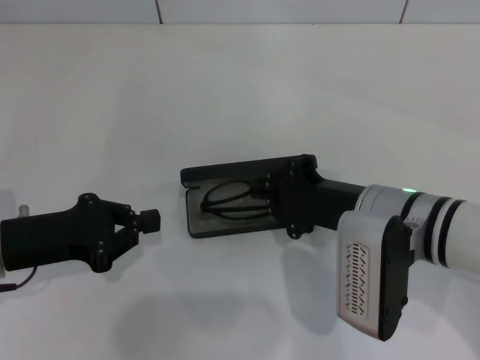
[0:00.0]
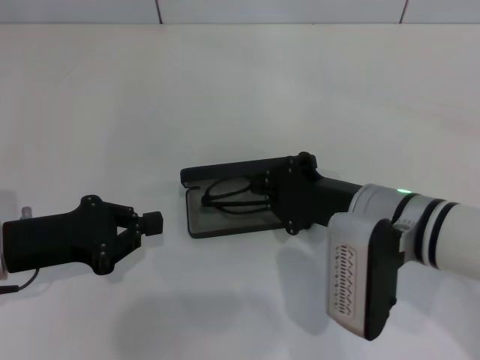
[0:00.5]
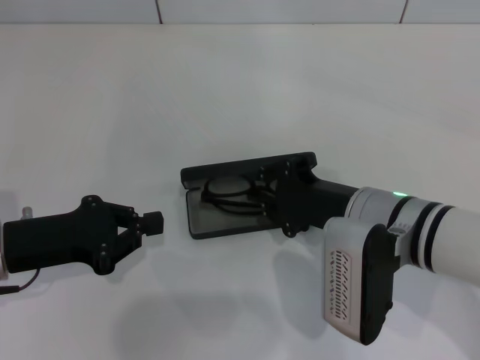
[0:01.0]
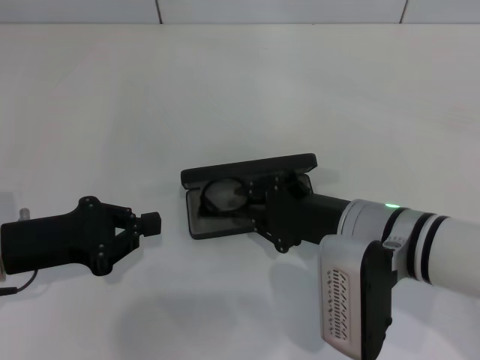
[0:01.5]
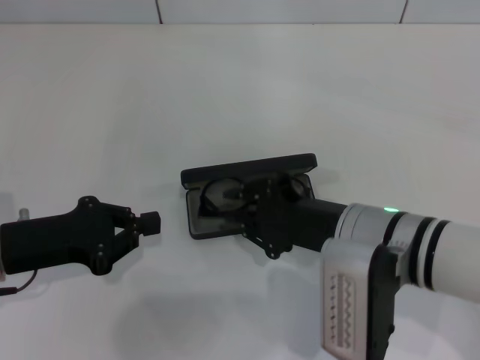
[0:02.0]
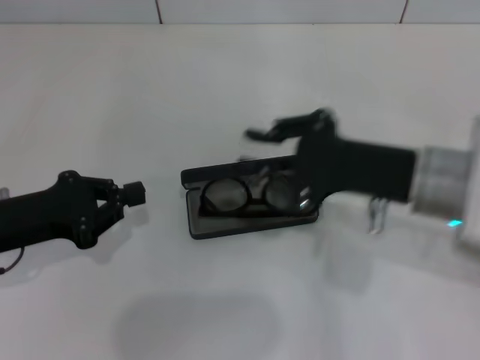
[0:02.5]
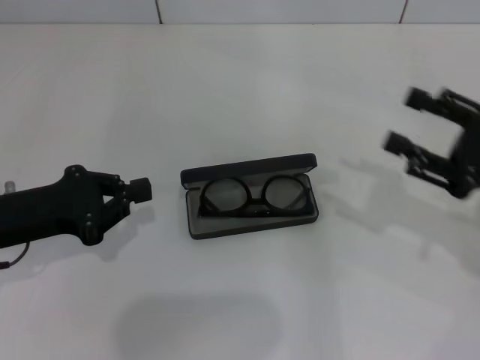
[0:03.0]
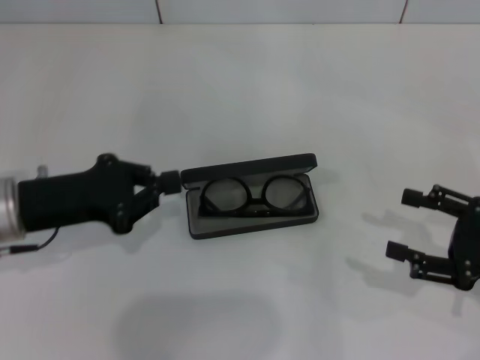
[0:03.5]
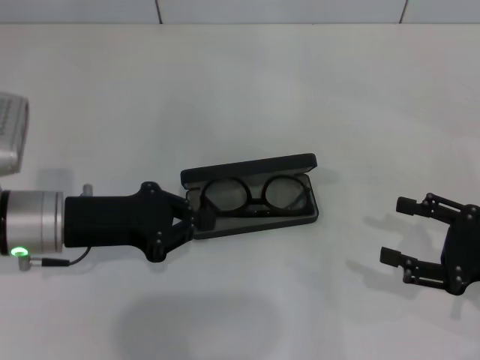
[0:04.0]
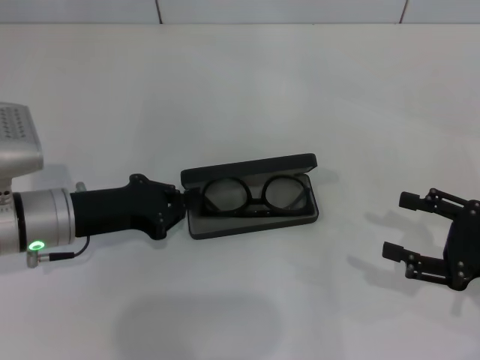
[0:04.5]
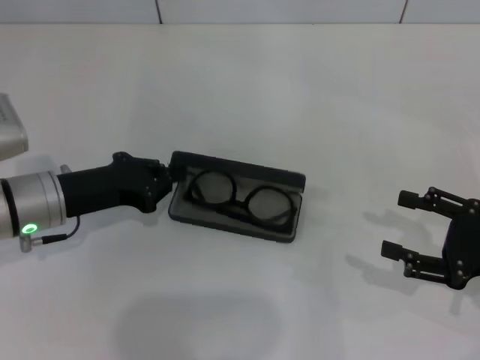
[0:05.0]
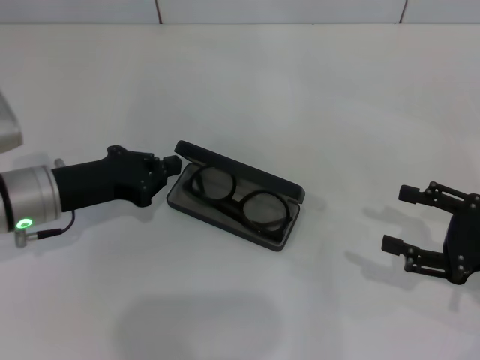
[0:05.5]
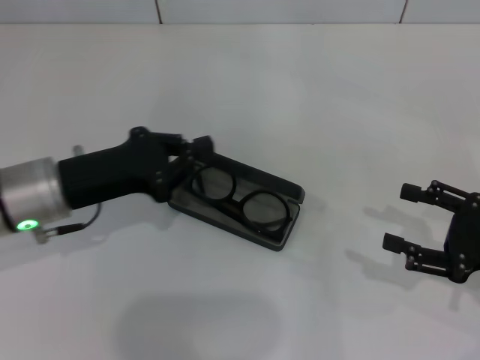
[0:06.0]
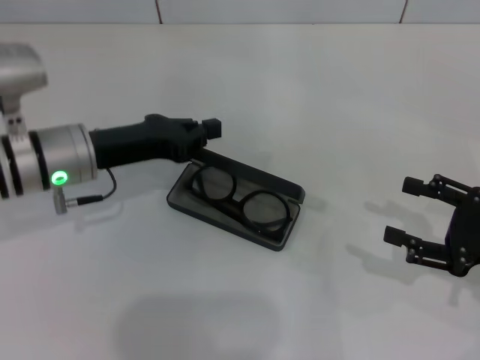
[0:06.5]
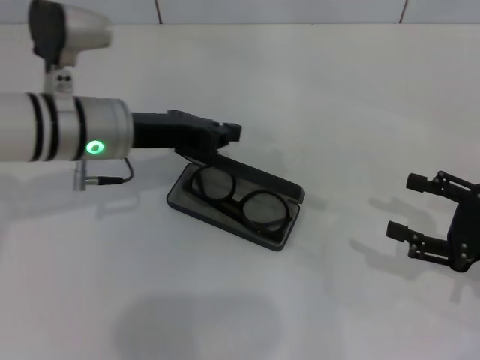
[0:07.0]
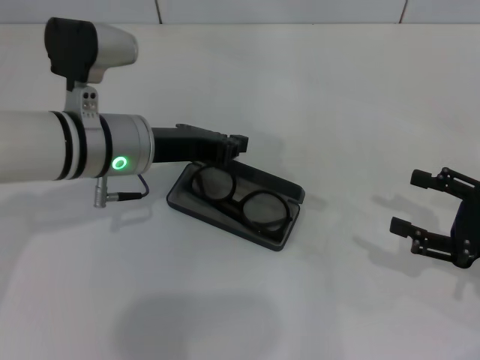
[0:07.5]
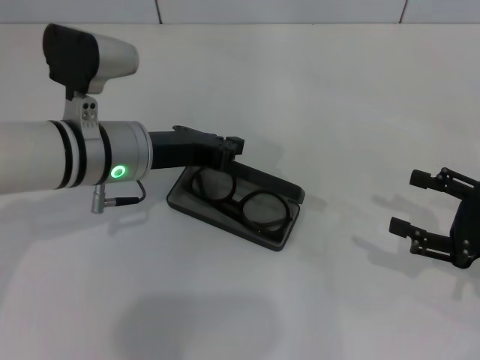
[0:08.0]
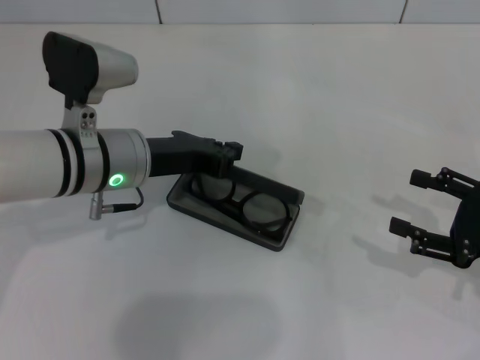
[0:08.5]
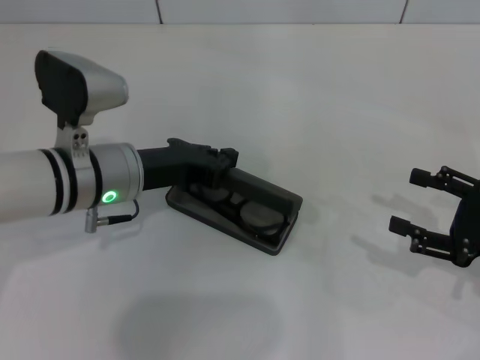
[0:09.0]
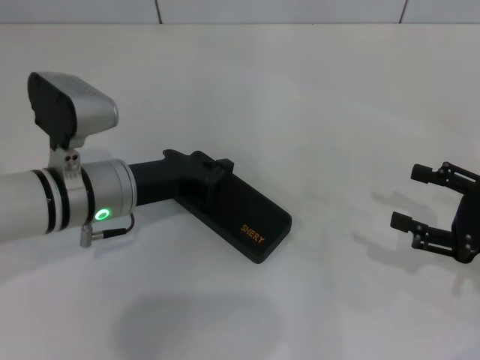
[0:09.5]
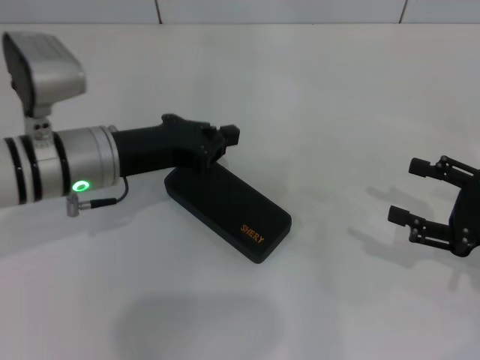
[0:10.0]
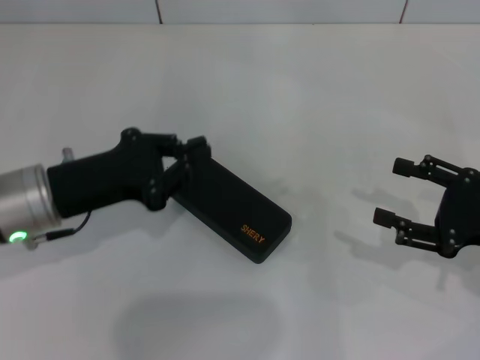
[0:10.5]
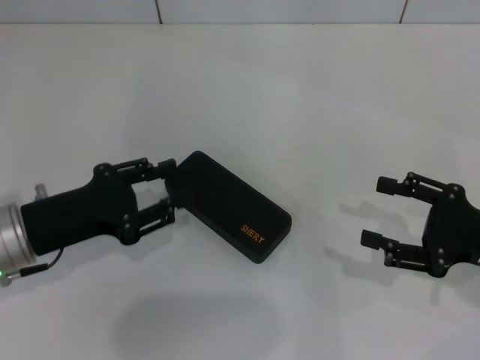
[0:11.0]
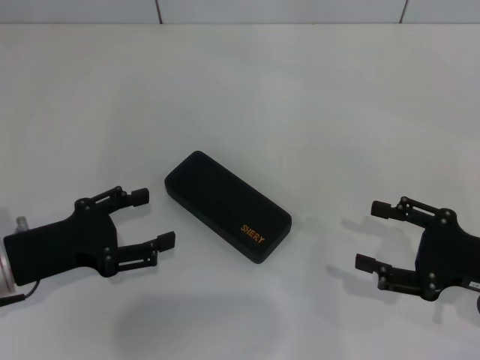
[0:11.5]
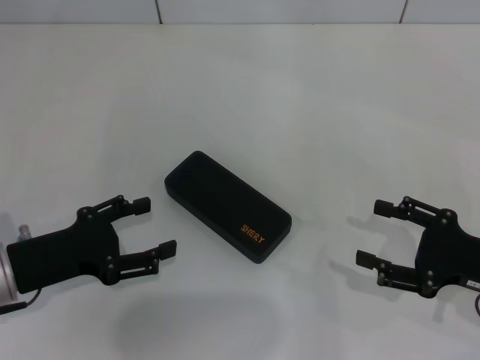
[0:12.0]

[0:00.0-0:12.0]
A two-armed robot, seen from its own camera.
Step, 0:02.0 to 0:09.0: Close the glasses case with your left hand.
0:00.0 to 0:02.0: The grippers make only small movements.
0:02.0 to 0:04.0: The right gripper shifts about 20 cm to the right, and opens its fingers. Meanwhile the left gripper shifts approximately 5 cm to the right.
0:06.0 to 0:08.0: The left gripper shifts roughly 10 cm to the right.
0:08.0 to 0:10.0: The grippers move only a little.
0:10.0 to 0:12.0: The left gripper is displaced backward, to the left and downward by about 15 cm, and opens up.

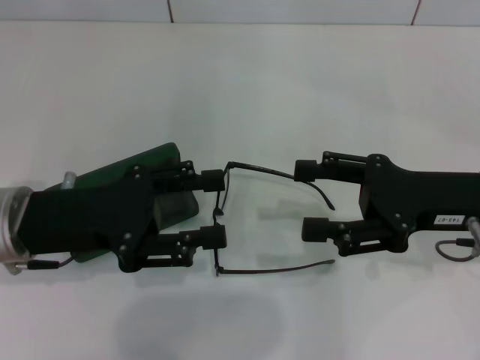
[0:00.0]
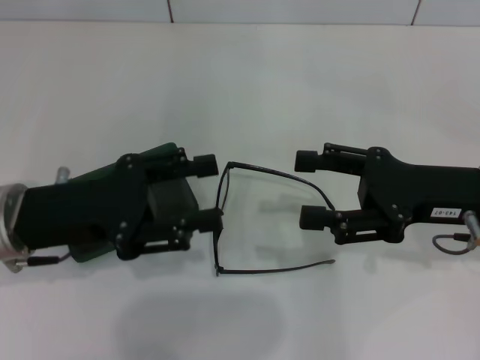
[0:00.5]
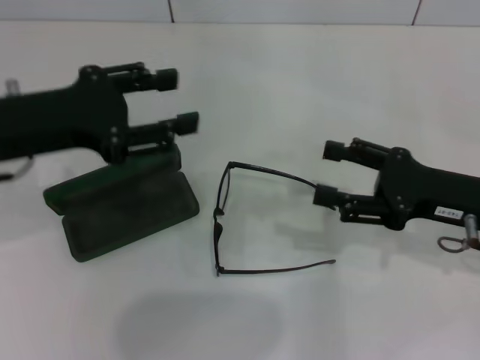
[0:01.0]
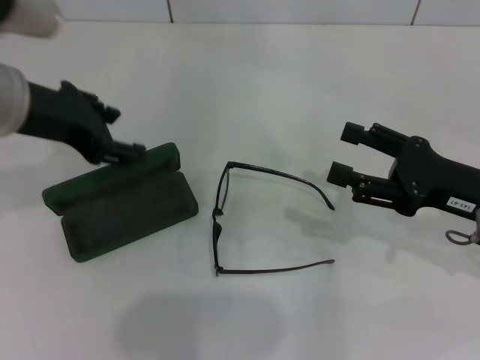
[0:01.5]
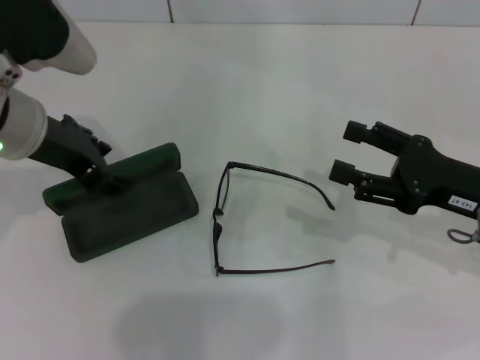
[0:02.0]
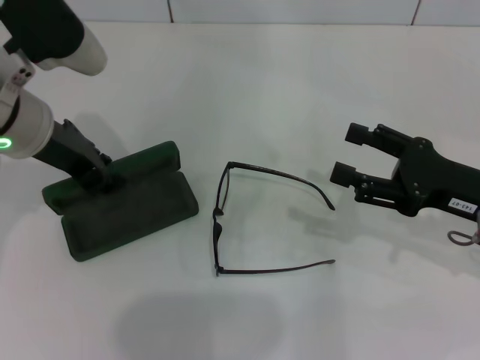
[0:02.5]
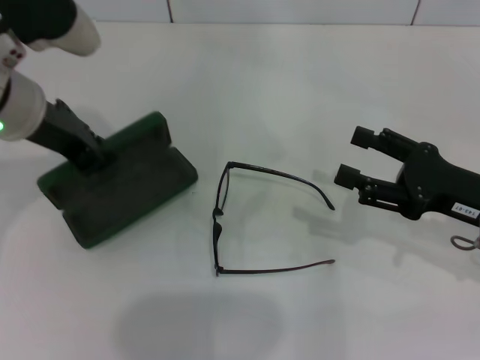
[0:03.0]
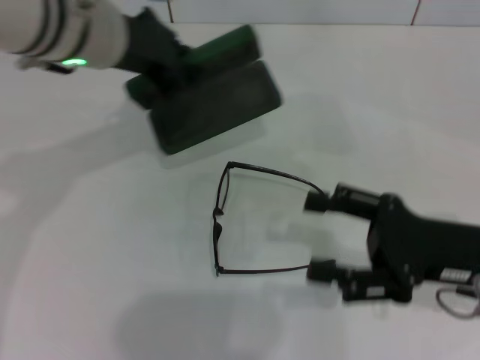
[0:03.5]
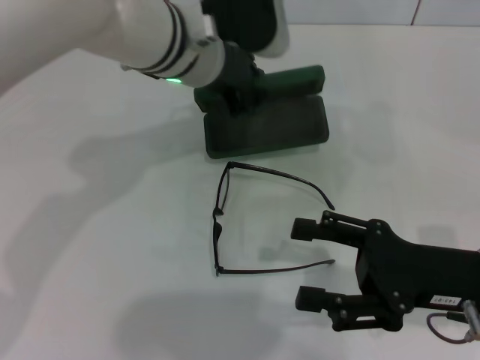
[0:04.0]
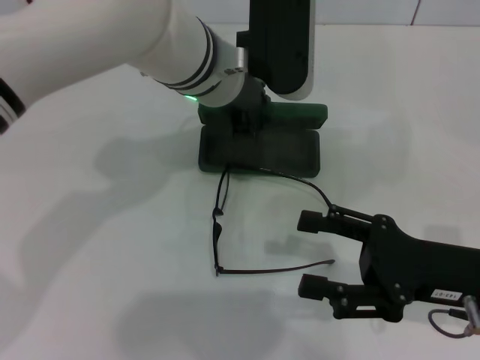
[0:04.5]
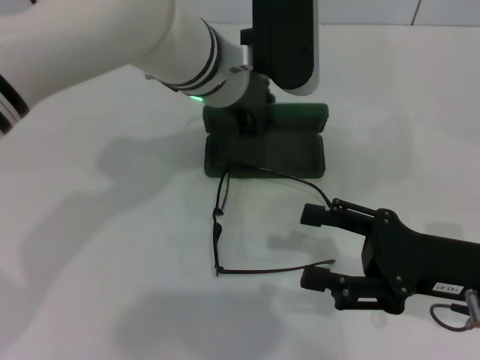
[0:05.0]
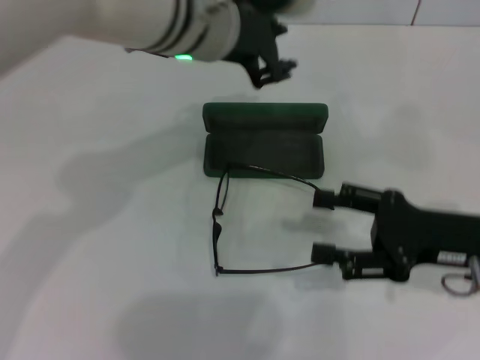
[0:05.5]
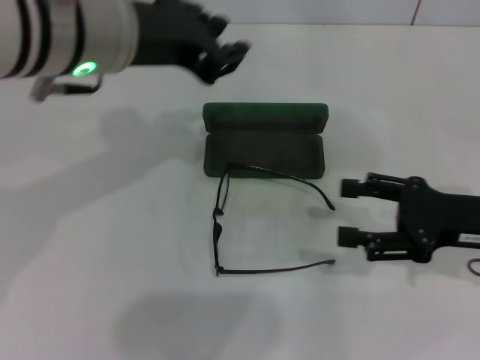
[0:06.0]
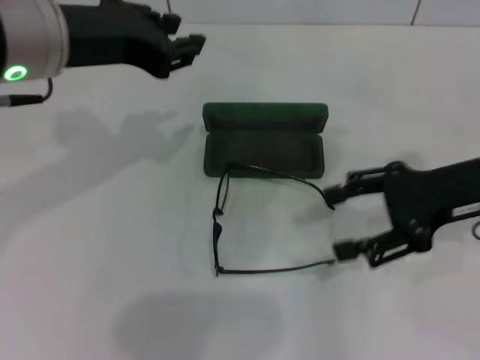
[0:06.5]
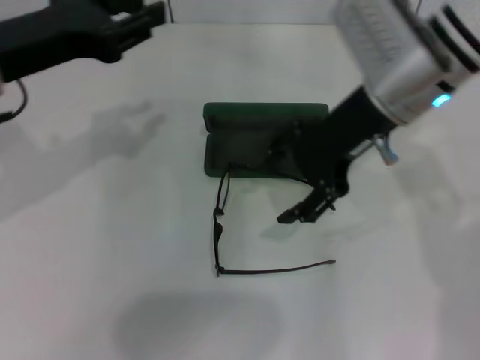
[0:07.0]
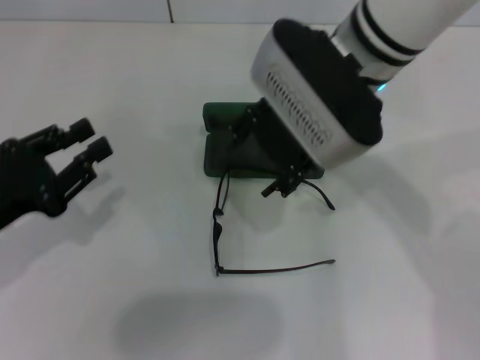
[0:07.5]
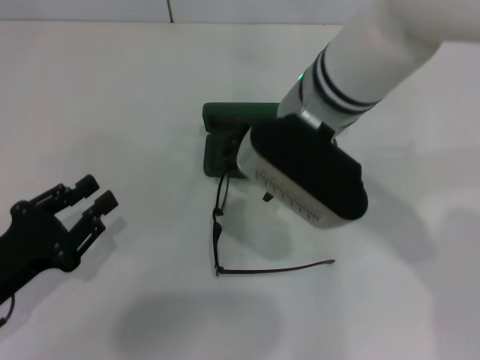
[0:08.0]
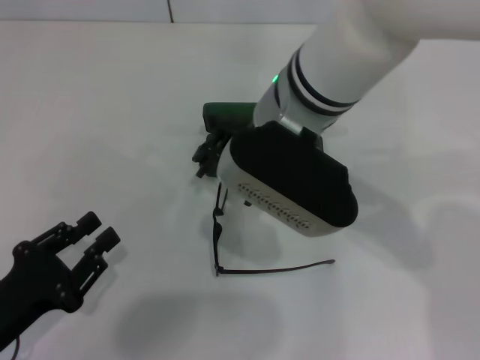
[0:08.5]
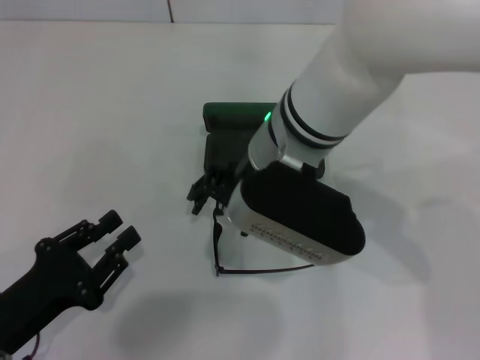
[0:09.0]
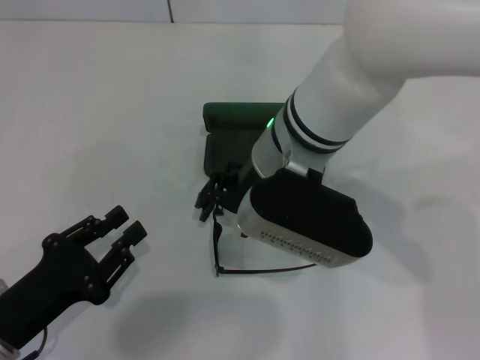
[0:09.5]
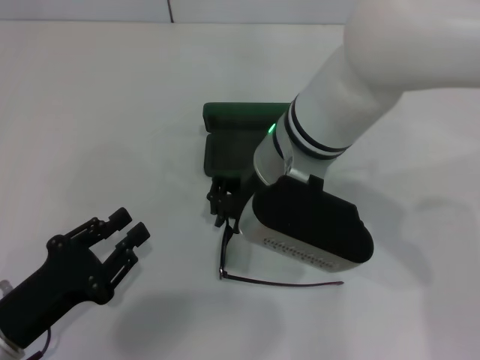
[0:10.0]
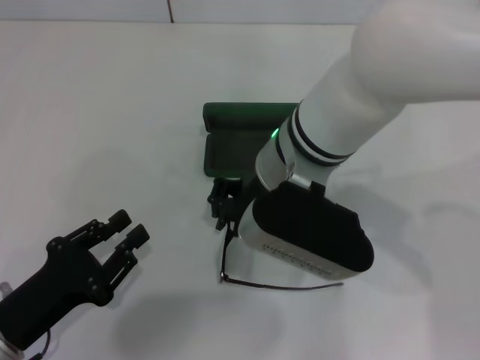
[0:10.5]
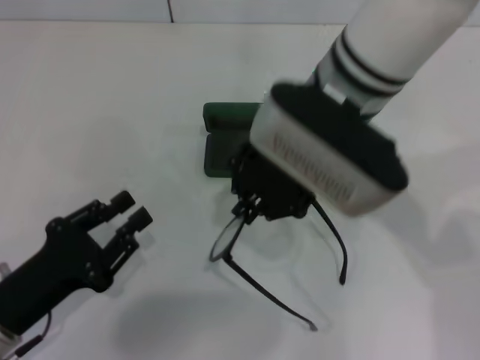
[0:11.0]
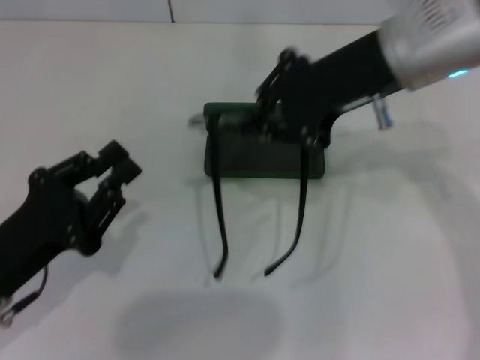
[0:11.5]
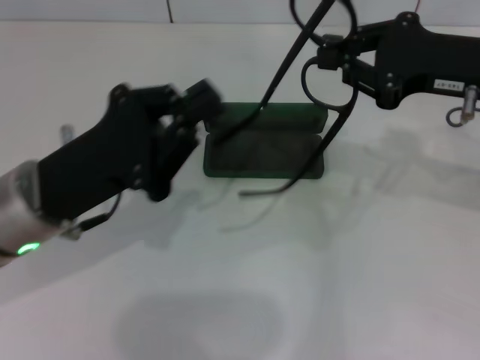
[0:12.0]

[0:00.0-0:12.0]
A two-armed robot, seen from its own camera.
Step, 0:00.0 to 0:02.5: Grab the glasses case with your left hand.
Step, 0:03.0 to 0:05.0: Place the glasses case in the center of the table with your left hand.
Step, 0:05.5 to 0:10.0: Grab the eyeglass frame with your right hand.
0:00.0 to 0:02.0: The left gripper heads upward and forward, covering approximately 10 cm.
0:02.0 to 0:04.0: The right gripper is displaced backward by some 5 cm, while the left gripper goes some 15 cm to the right and forward, and closes its fingers.
0:04.0 to 0:06.0: The right gripper heads forward, covering some 5 cm, while the left gripper heads backward, upward and to the left, covering some 10 cm.
0:06.0 to 0:08.0: The left gripper goes roughly 30 cm downward, to the left and backward, while the right gripper moves to the left and upward, roughly 25 cm.
0:08.0 to 0:10.0: The right gripper closes its fingers.
0:10.0 to 0:12.0: The right gripper moves to the right, about 20 cm, while the left gripper moves forward, upward and to the right, some 15 cm, and closes.

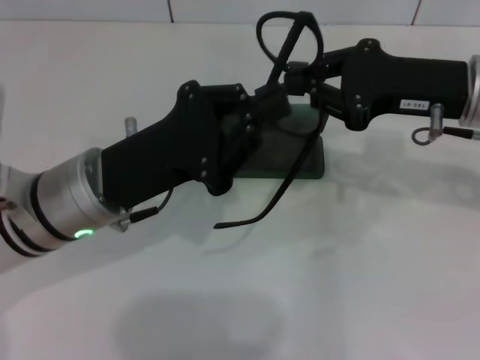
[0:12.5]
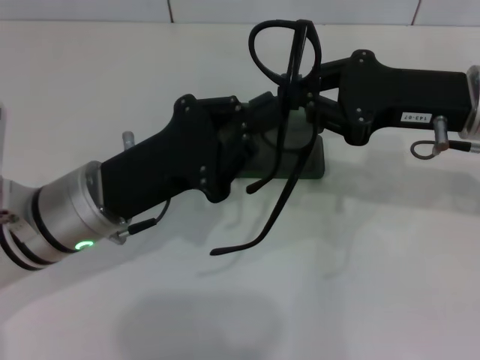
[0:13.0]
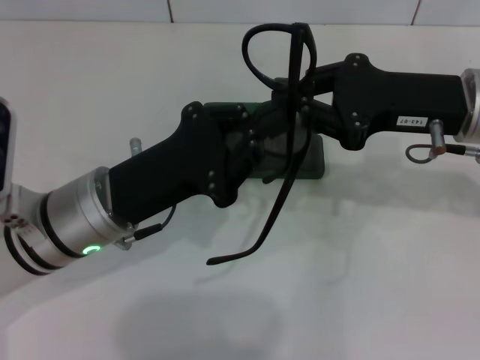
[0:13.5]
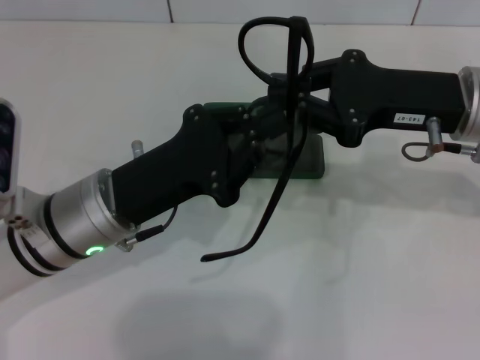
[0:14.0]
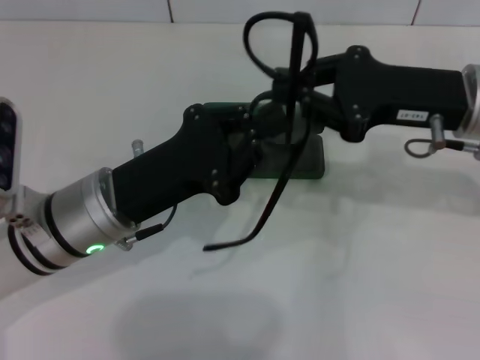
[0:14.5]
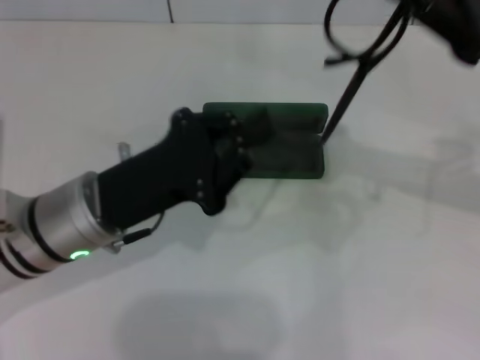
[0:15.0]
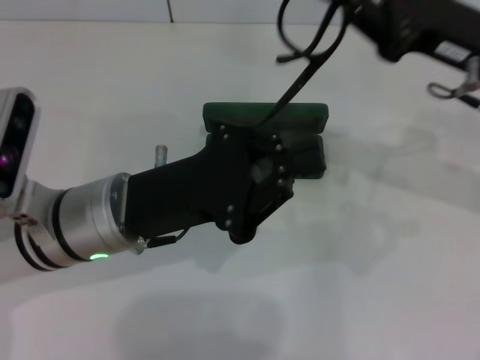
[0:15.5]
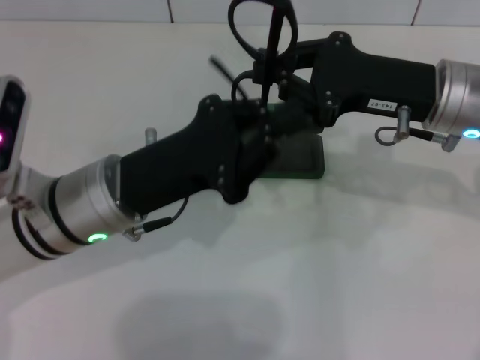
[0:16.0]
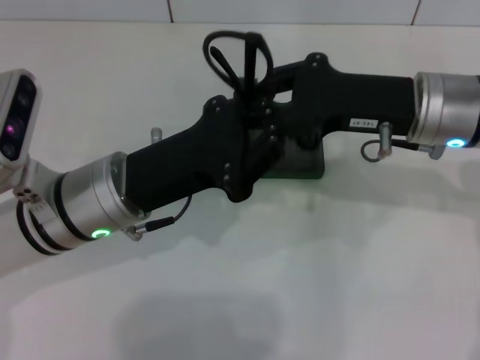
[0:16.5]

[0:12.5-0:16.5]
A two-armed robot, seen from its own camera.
0:12.5 to 0:14.5: The grippers stay close to where they were, moving slightly.
